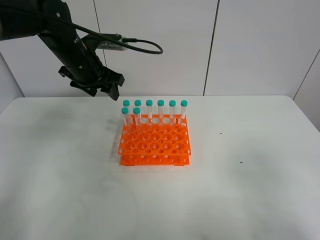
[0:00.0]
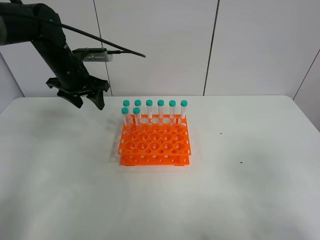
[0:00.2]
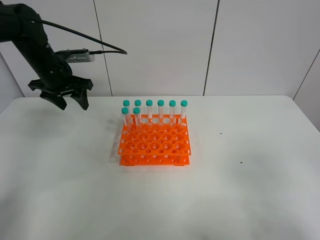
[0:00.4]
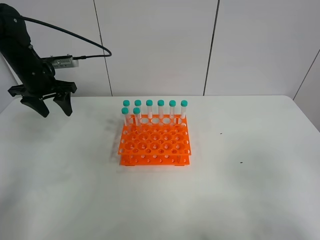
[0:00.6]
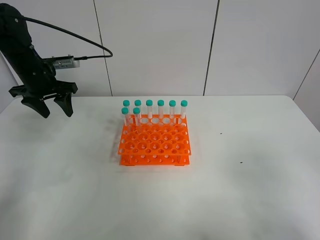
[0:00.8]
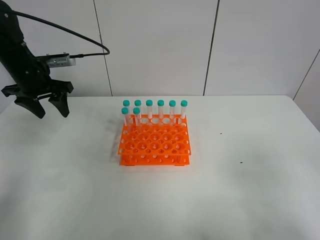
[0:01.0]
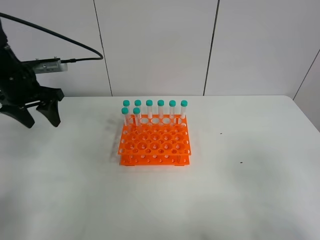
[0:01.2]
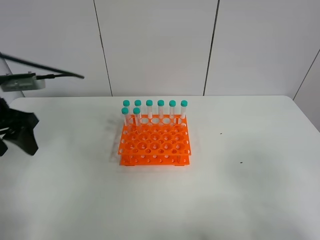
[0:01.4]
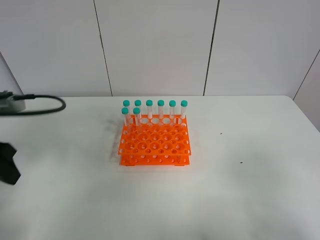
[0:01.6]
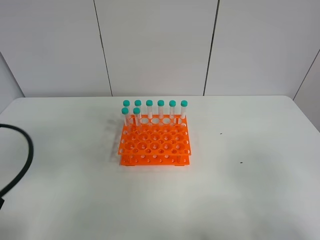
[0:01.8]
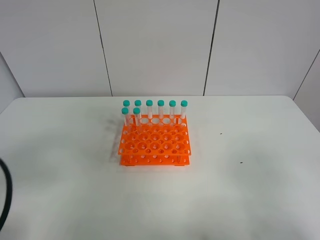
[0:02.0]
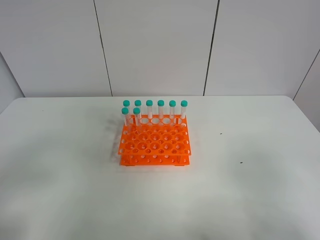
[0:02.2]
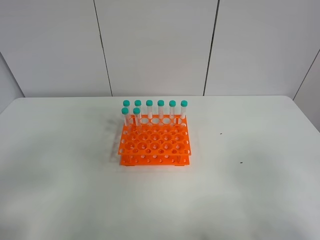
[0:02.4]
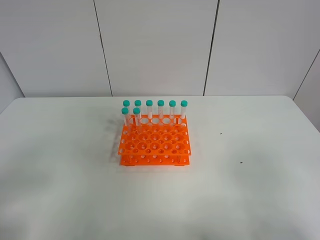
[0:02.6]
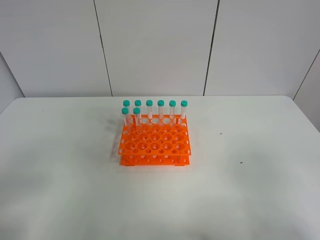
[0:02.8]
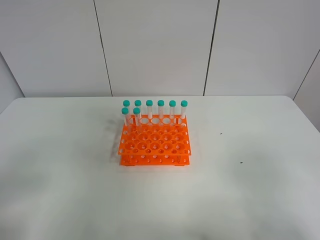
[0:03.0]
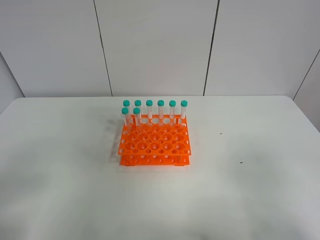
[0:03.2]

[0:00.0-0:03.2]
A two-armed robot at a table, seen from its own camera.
Task of the whole recording: Put the test tube on the table back onto the test tube rack.
0:00.0 to 0:01.6: The left gripper travels backward and to the left by roughly 25 cm.
0:01.6 to 0:03.2: The left gripper moves backward, approximately 20 cm.

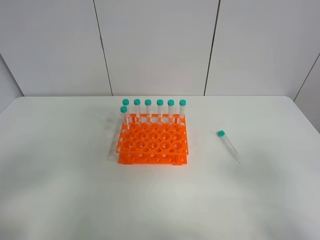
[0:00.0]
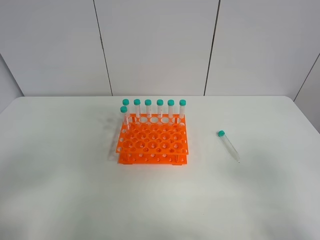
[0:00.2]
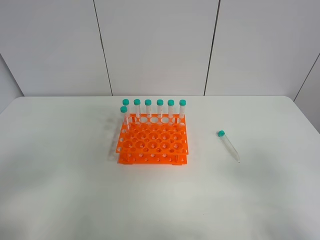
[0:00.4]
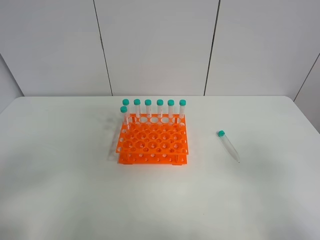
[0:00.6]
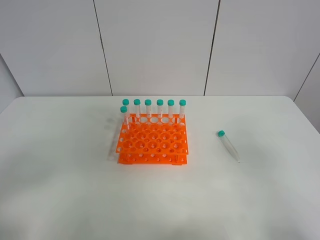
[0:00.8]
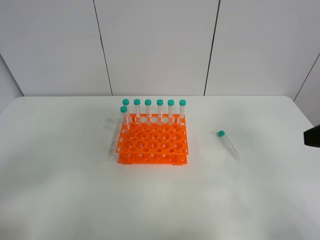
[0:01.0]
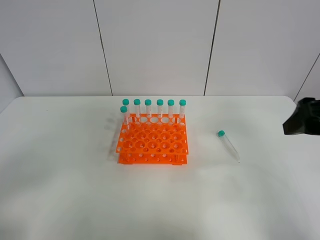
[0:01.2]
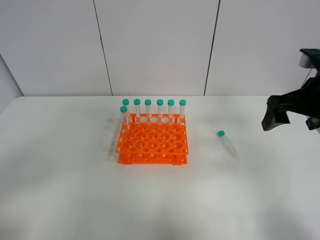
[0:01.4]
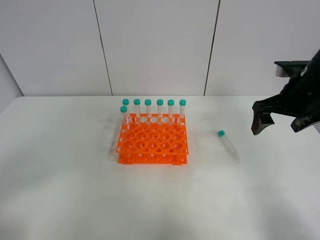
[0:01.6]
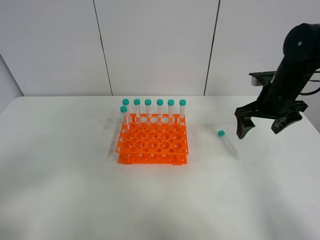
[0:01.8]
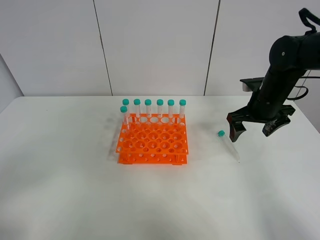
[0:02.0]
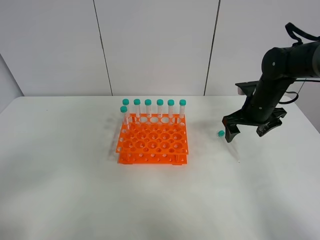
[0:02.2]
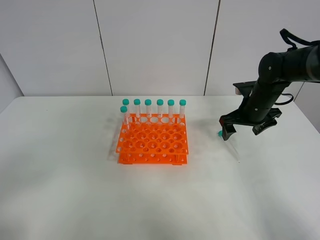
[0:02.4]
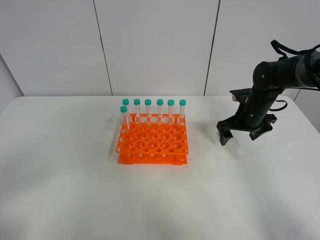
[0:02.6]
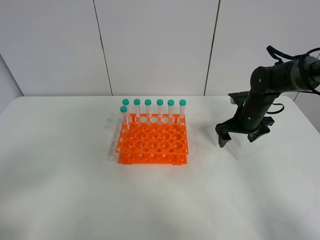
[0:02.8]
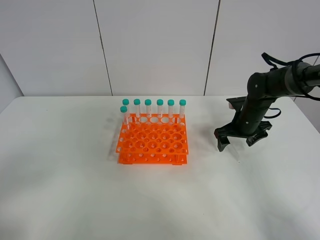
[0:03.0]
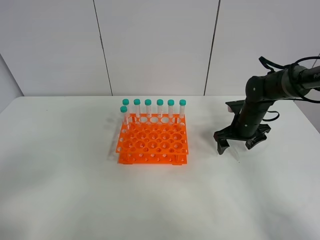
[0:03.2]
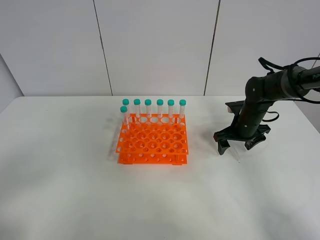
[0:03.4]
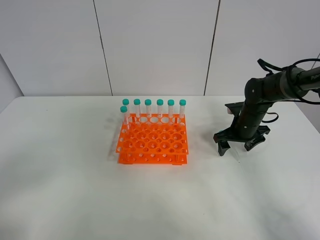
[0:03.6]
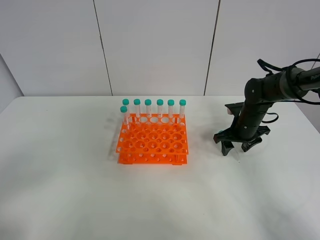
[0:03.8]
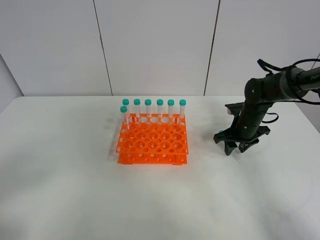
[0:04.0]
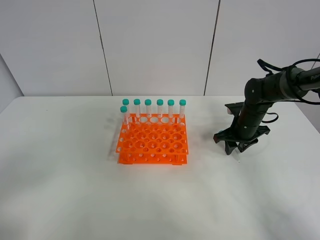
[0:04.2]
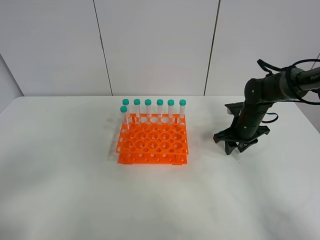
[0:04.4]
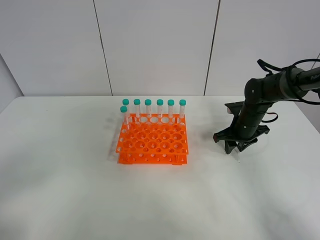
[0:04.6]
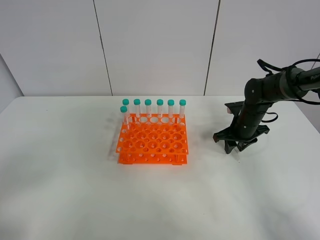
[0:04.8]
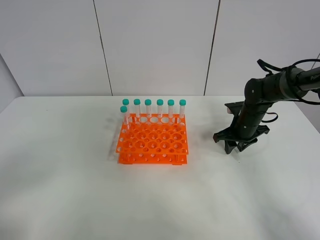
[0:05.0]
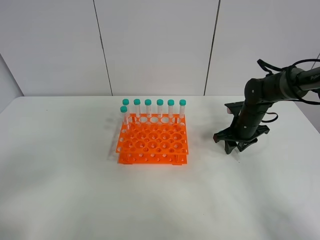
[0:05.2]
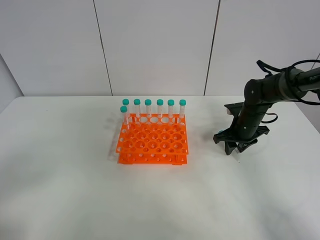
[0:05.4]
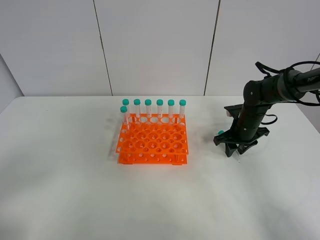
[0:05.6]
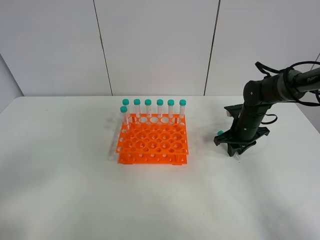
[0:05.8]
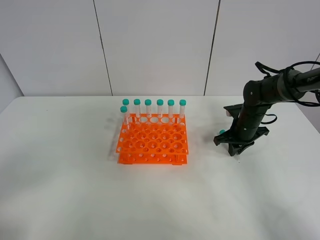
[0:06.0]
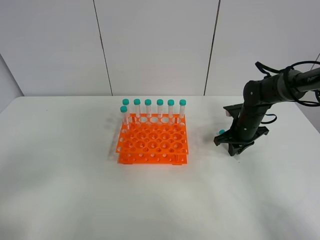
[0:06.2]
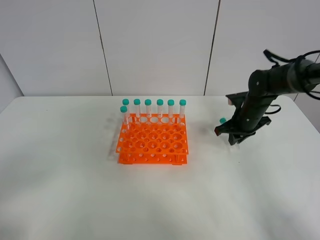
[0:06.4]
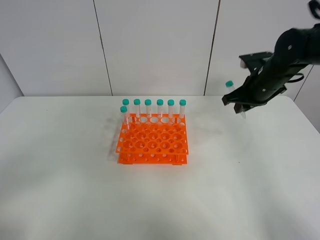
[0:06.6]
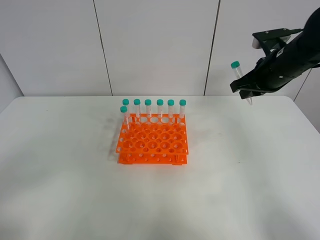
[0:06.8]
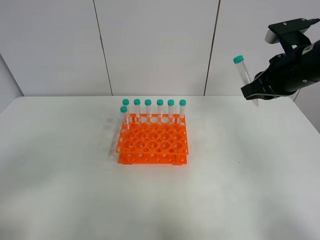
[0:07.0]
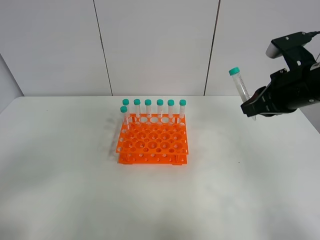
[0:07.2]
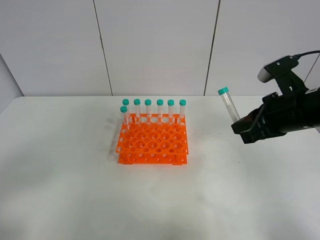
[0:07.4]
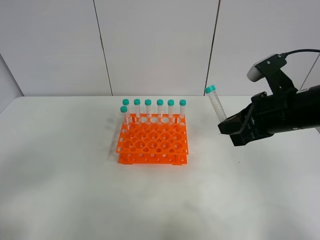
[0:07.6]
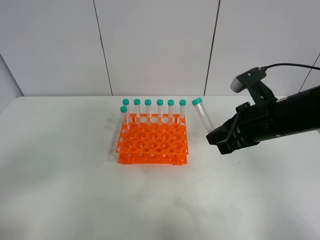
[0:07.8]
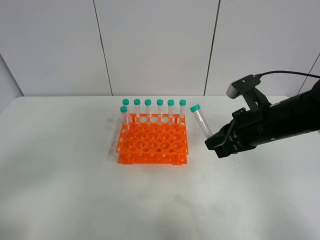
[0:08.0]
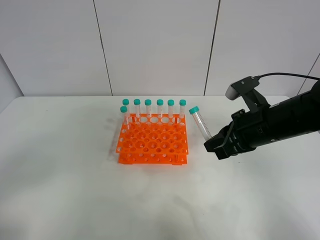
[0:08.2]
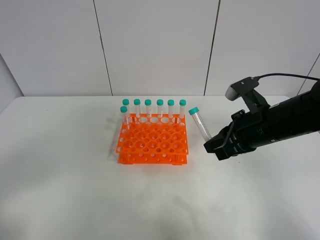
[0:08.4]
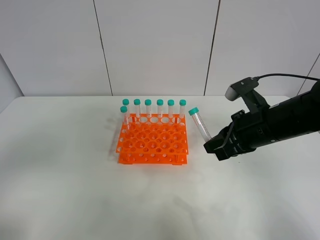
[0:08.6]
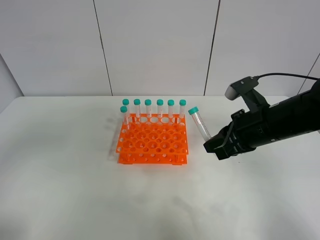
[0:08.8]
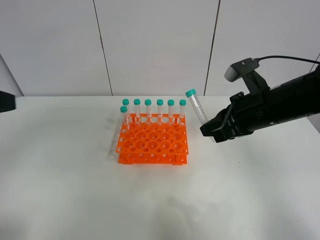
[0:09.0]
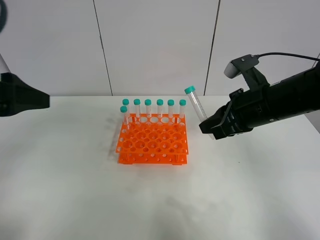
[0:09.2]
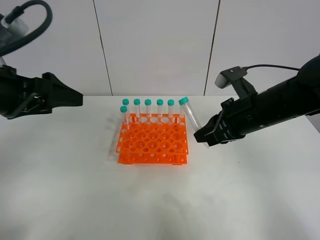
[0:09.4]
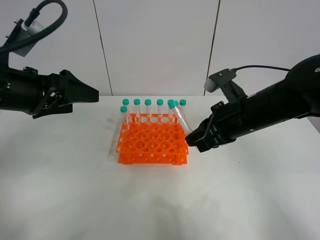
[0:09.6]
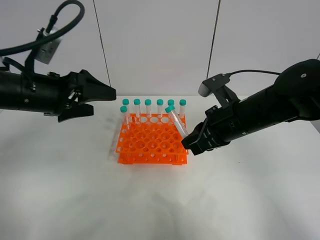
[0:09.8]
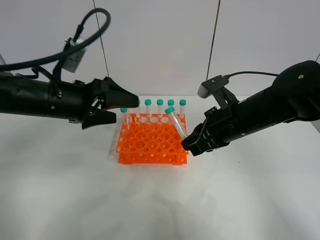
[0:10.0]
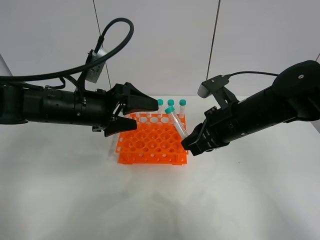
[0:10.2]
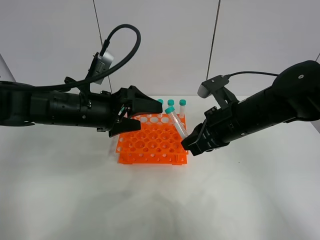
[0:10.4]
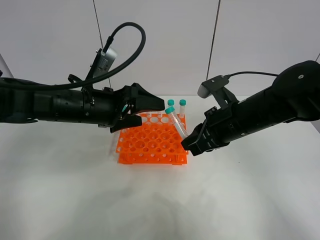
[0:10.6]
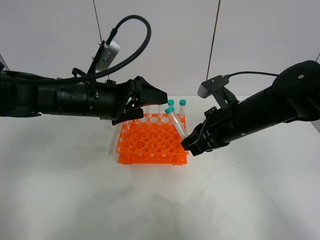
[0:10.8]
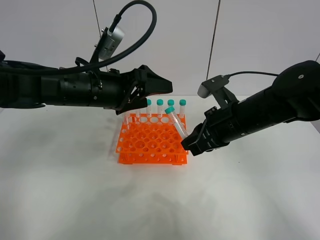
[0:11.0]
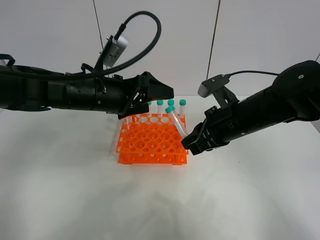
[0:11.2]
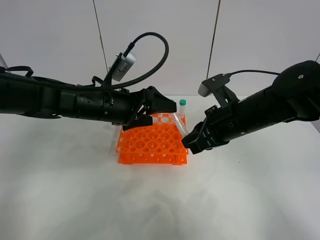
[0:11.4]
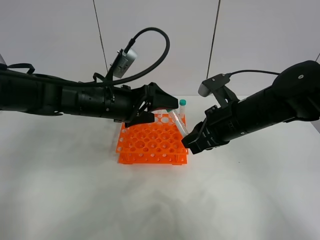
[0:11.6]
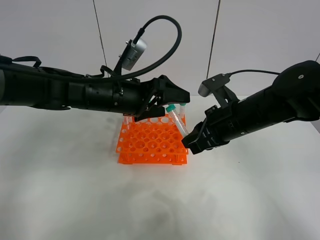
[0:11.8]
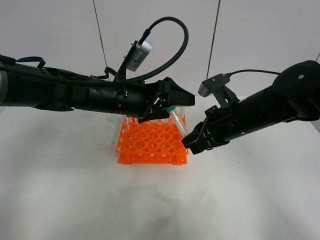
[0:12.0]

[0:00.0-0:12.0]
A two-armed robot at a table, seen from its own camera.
Task of the whole recording: Put the test tube on the table back onto the test tube rack.
Step, 0:00.0 to 0:06.6: Pick up the test tube with the right gripper.
0:00.0 to 0:01.6: The right gripper travels forward by some 30 cm.
0:01.6 to 0:03.0: The right gripper is displaced downward and forward by approximately 20 cm.
0:03.0 to 0:04.4: The right gripper closes up.
0:04.4 to 0:06.0: Neither gripper changes place.
0:06.0 to 0:07.6: The right gripper travels upward and backward by roughly 25 cm.
0:07.6 to 0:09.0: The left gripper is displaced forward and upward by about 15 cm.
0:09.0 to 0:10.4: The left gripper is displaced forward, to the right and downward by about 25 cm.
0:10.4 to 0:12.0: The left gripper moves to the right, some 5 cm.

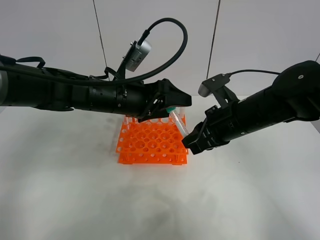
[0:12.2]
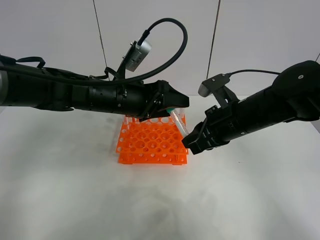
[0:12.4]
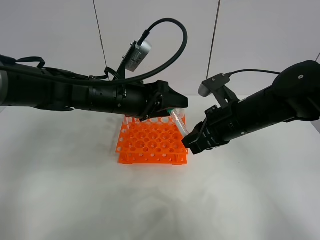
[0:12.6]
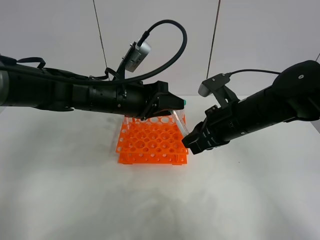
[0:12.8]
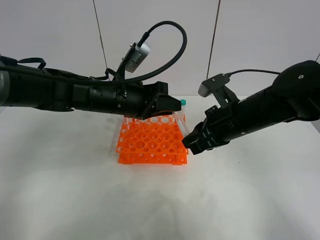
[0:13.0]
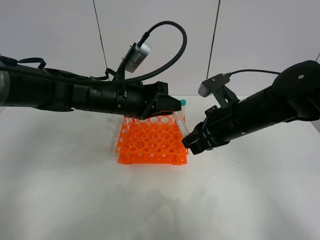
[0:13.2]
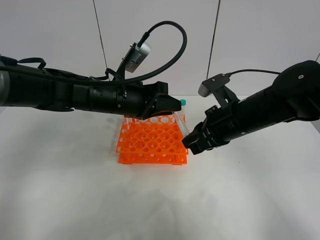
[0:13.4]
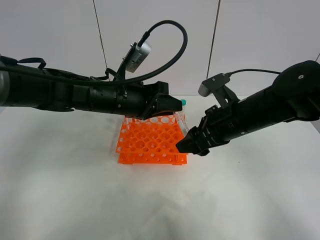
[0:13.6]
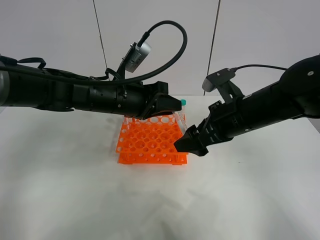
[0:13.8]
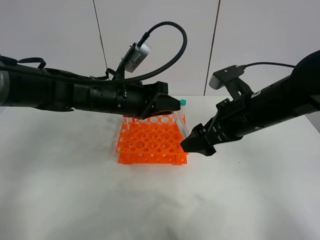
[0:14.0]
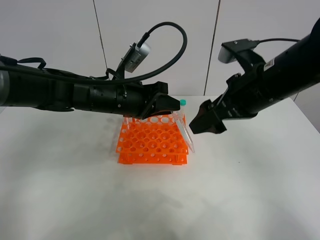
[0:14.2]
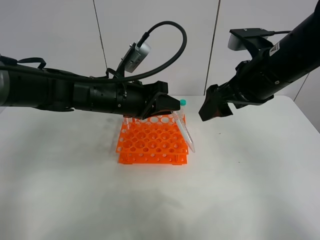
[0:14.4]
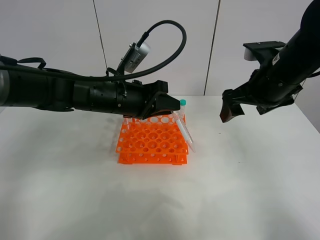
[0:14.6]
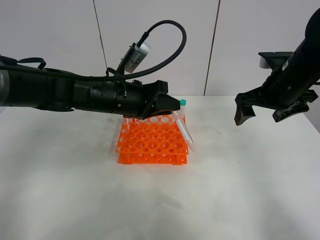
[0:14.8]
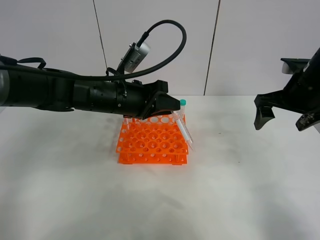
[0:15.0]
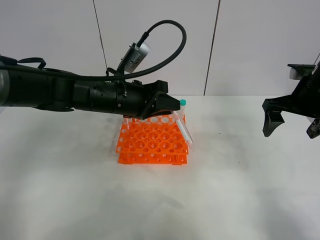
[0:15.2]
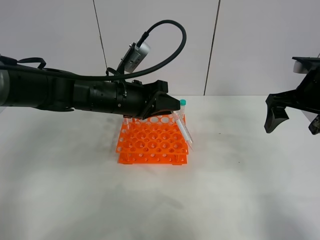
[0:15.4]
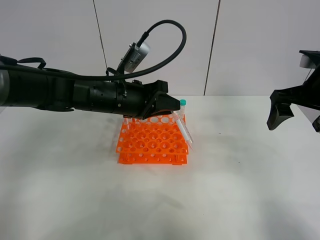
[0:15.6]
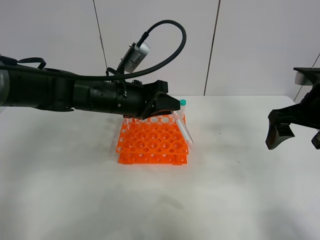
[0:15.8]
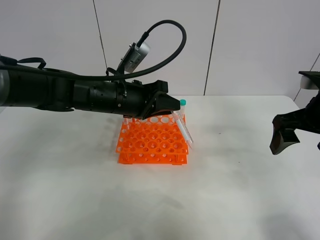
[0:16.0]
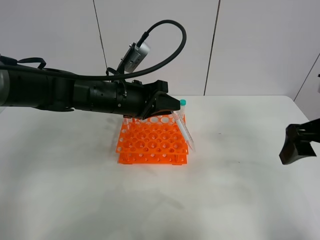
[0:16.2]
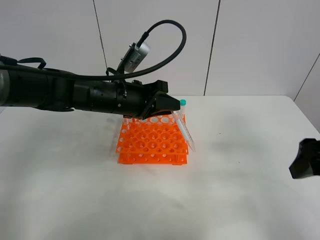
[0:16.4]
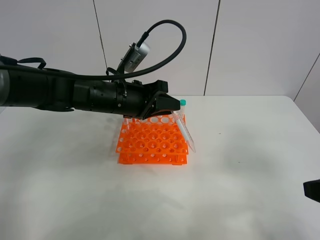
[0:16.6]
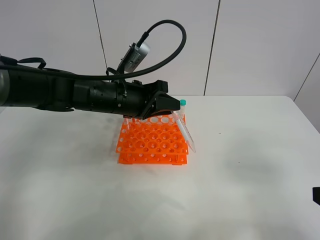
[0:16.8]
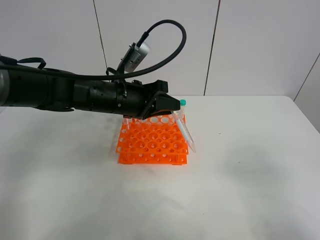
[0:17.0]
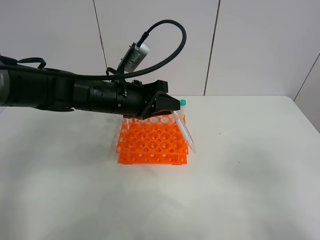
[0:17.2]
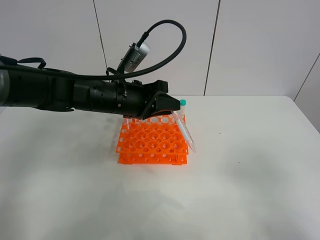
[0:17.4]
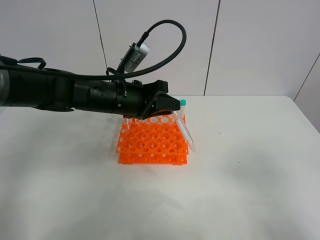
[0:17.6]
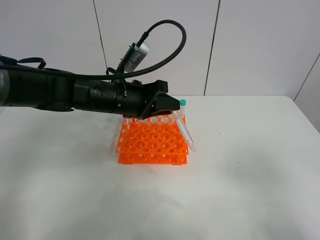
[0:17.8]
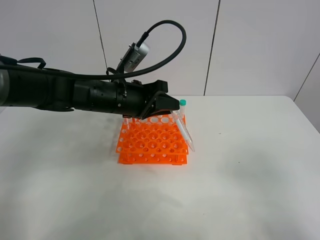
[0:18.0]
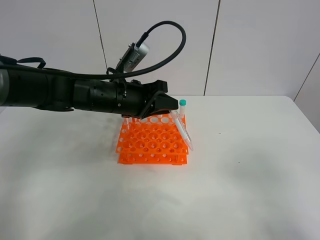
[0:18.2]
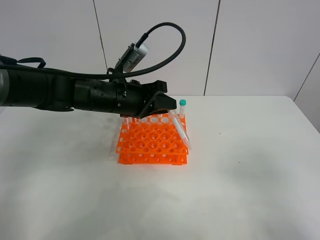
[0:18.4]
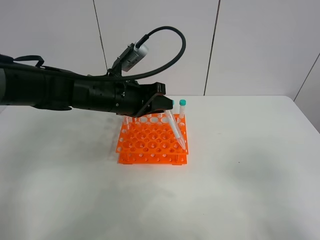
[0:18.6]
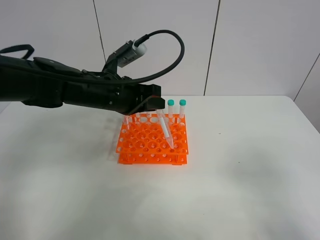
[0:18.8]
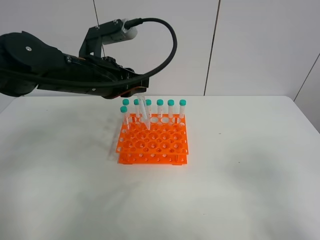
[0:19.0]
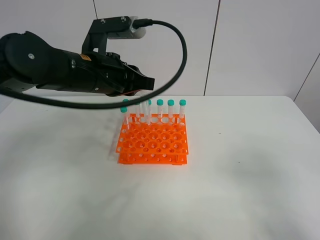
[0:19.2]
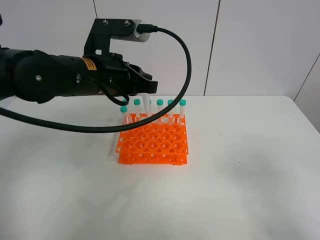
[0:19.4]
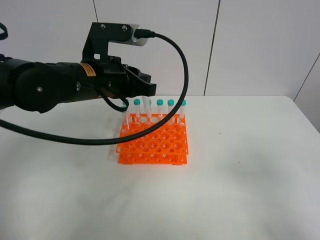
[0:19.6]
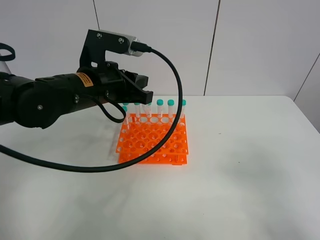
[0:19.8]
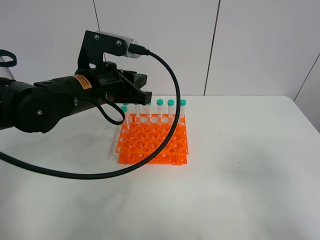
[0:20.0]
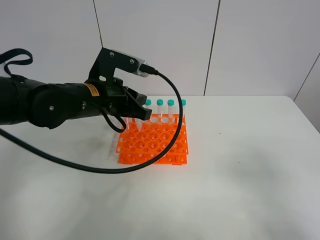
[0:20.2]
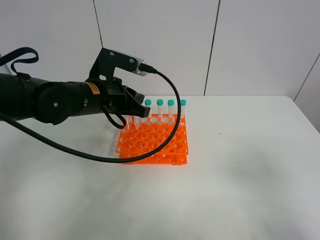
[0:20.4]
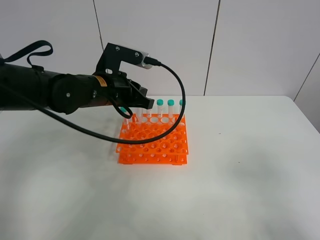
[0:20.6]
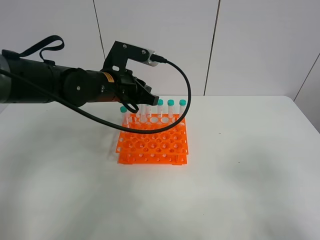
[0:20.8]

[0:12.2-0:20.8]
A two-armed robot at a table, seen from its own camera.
Task of the whole recording: Put the test tube on the table back onto the test tube rack.
Step, 0:12.2 to 0:14.4: Move the test tube from the right gripper to the left gripper.
0:12.2 to 0:13.6: The right gripper opens up, while the left gripper closes up.
0:13.6 to 0:15.0: The right gripper travels to the right by roughly 15 cm.
0:15.0 to 0:16.6: The right gripper goes about 25 cm backward.
0:18.0 to 0:19.4: The left gripper moves upward, about 5 cm.
0:19.4 to 0:20.8: The left gripper is displaced forward and downward by approximately 10 cm.
